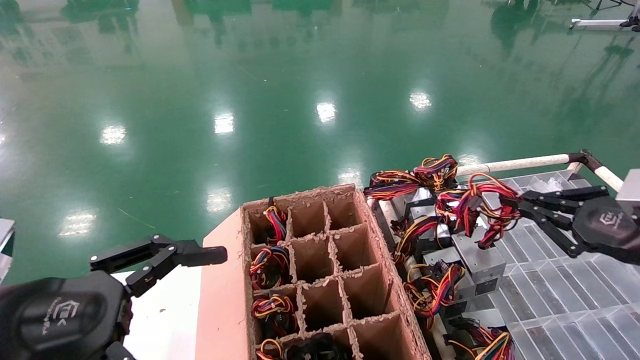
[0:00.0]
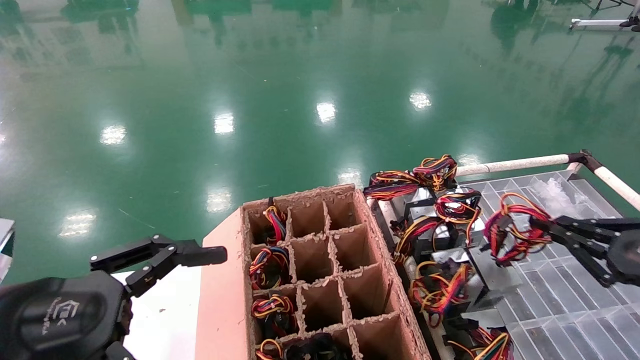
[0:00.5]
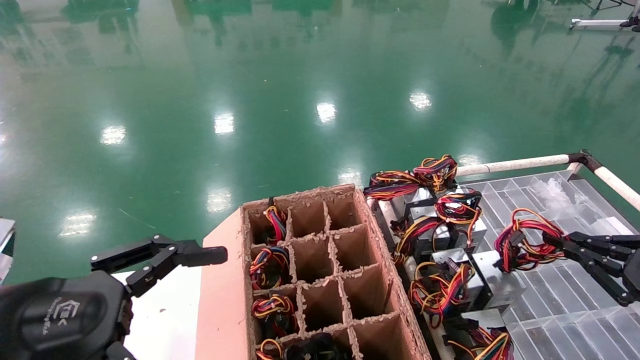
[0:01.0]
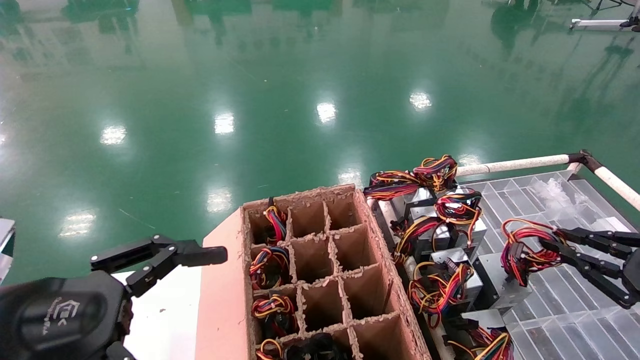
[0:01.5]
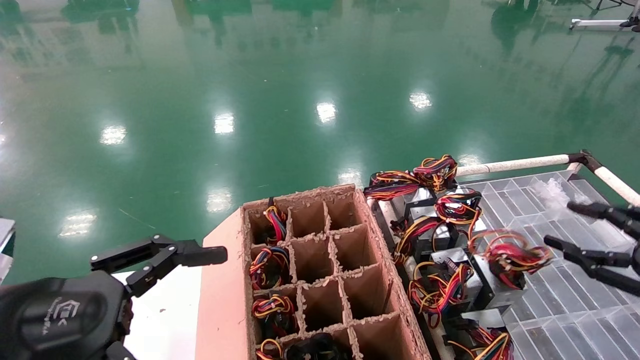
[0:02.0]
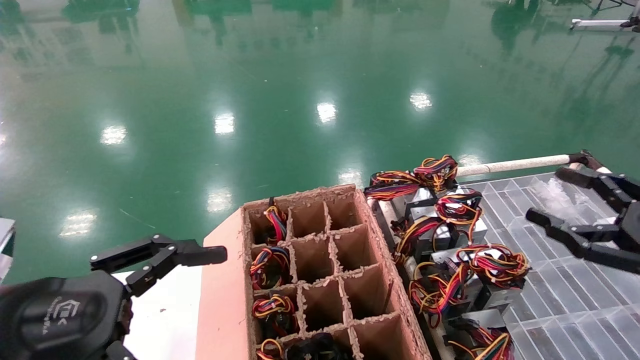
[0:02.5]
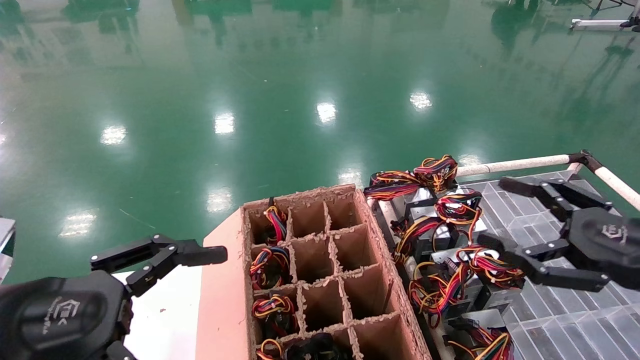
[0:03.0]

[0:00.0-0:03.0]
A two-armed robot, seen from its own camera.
0:00.0 to 0:01.5: The right gripper is displaced downward by approximately 5 cm.
0:01.5 to 0:03.0: The right gripper heads to the left and upward, covering approximately 10 cm, and opens up.

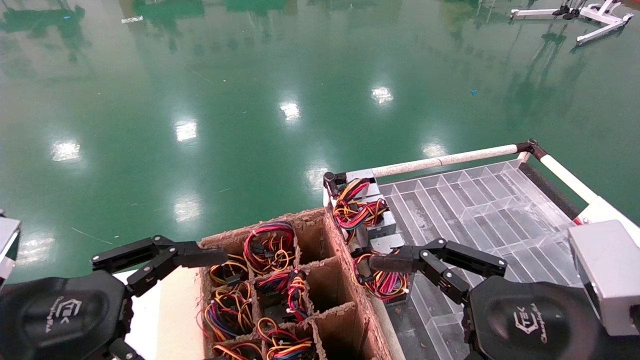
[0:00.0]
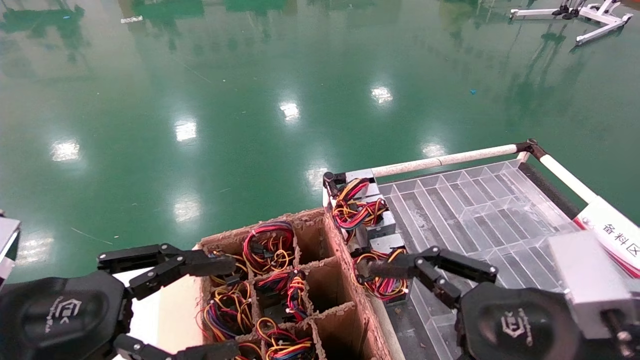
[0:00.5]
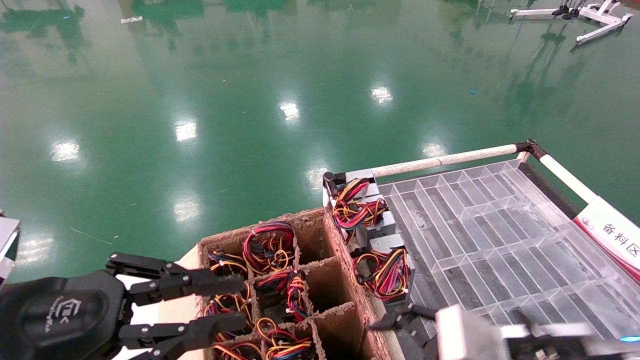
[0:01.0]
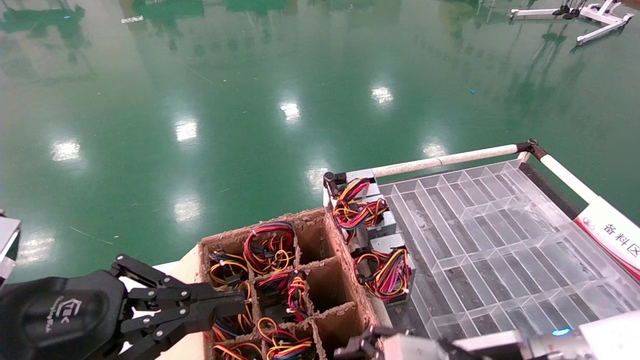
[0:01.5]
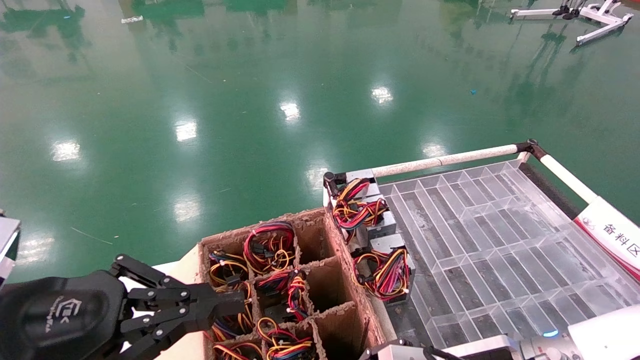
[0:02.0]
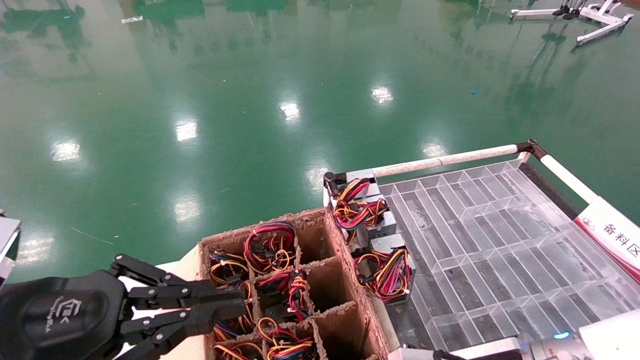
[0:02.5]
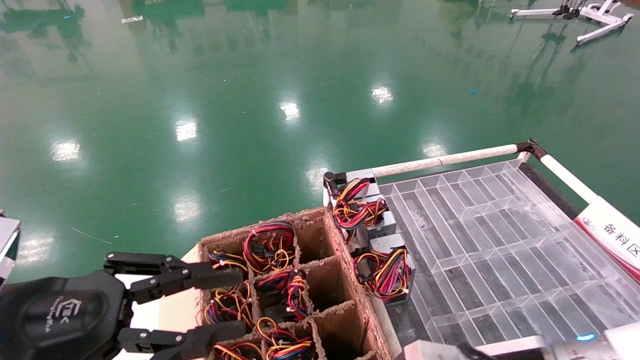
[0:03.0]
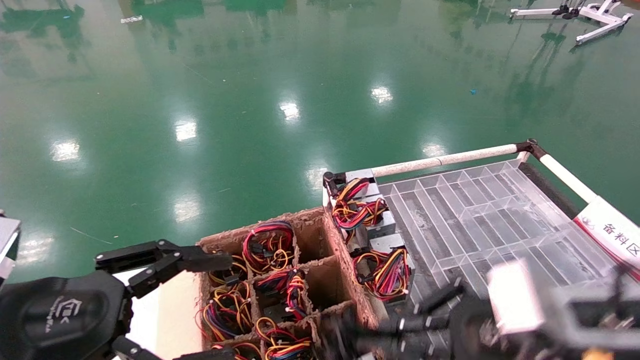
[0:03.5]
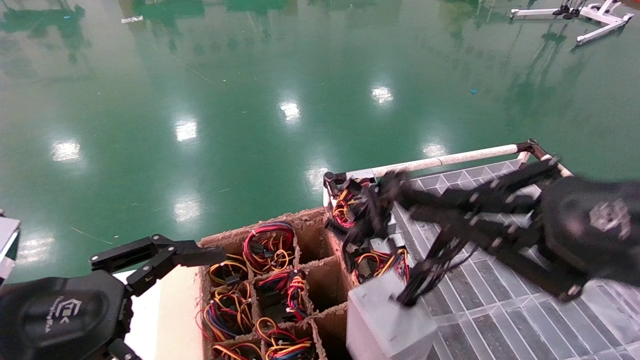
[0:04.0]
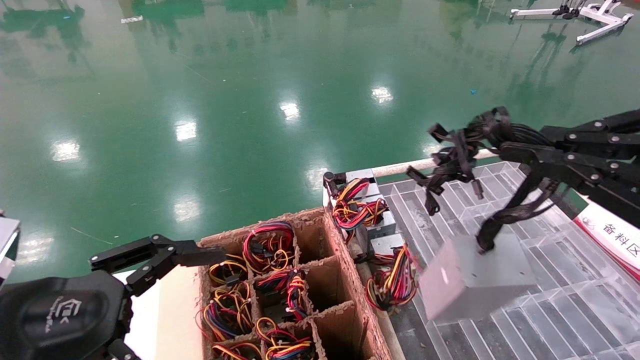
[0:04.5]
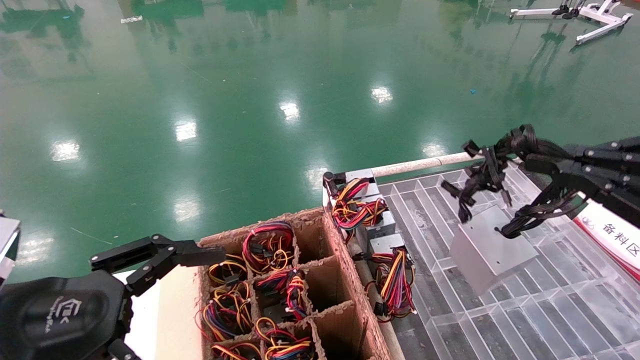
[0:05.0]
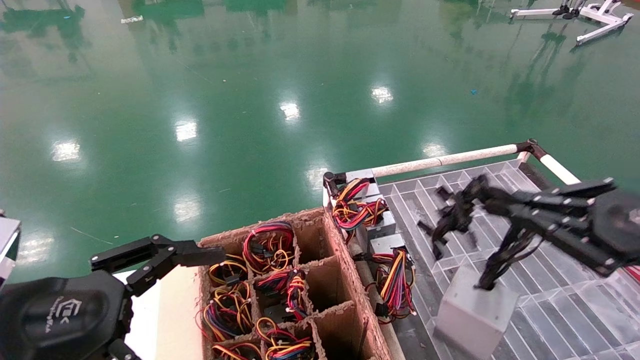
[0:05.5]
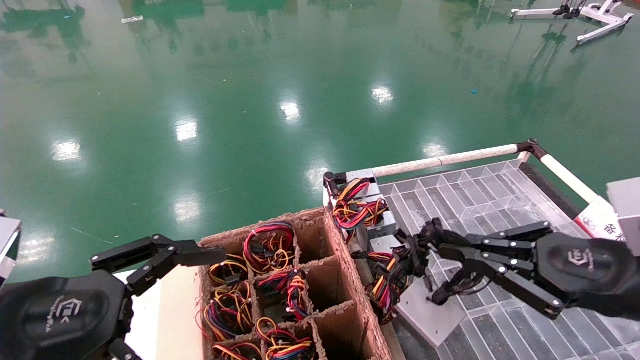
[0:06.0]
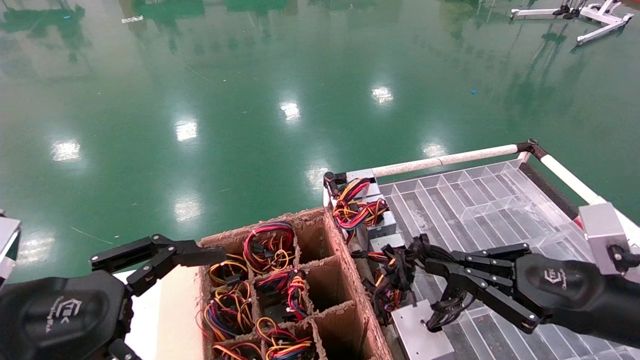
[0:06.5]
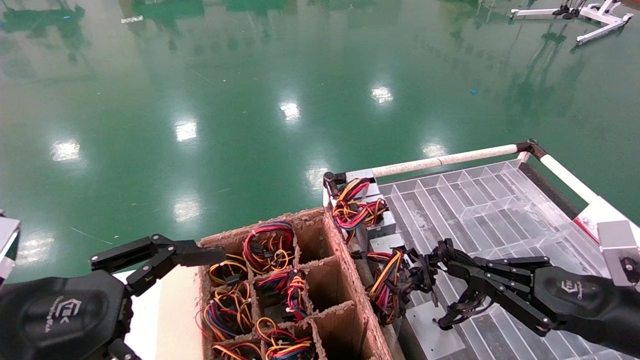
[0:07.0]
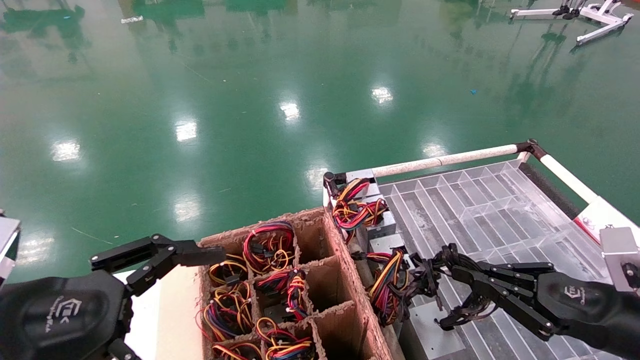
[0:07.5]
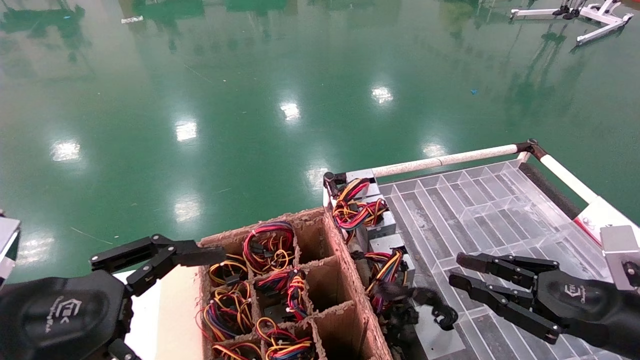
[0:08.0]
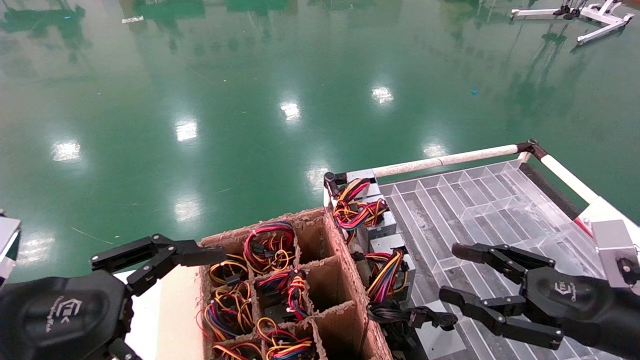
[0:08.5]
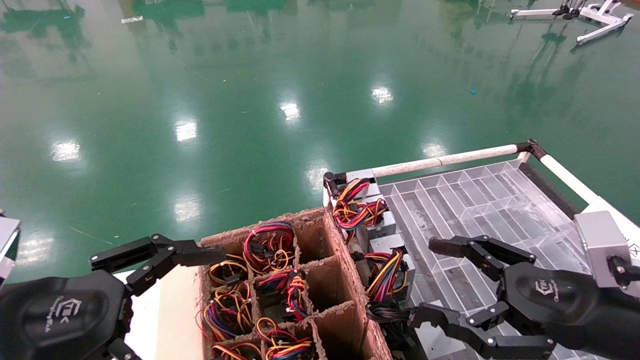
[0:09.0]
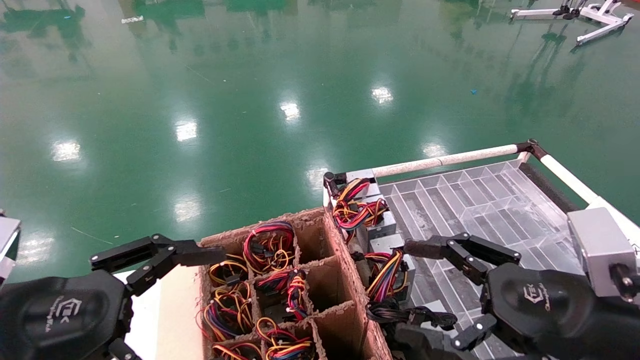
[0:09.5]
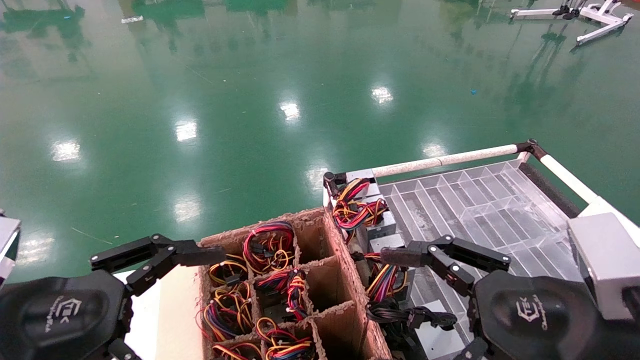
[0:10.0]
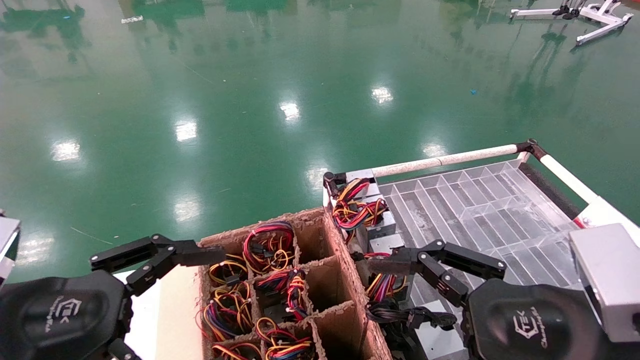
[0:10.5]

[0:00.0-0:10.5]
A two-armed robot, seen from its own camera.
Step, 0:01.5 to 0:02.5: Grab and lift the power supply from the large box.
Step, 0:03.0 to 0:07.5: Place the power supply on the operating table.
0:00.0 to 0:02.0: The right gripper goes approximately 15 cm downward, forward and to the left; the left gripper closes its fingers.
0:02.0 to 0:04.0: The left gripper opens up, while the right gripper goes about 20 cm upward, to the right and backward, and closes.
0:04.0 to 0:06.5: The right gripper shifts about 15 cm downward, forward and to the right.
0:06.5 to 0:08.5: The right gripper opens.
0:08.5 to 0:10.5: The right gripper shifts about 15 cm to the left, backward and upward, and opens its fingers.
